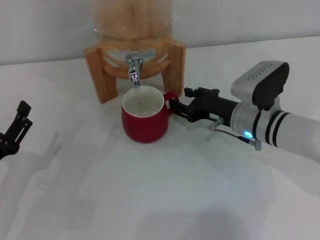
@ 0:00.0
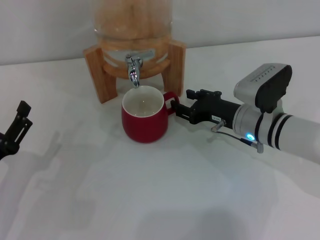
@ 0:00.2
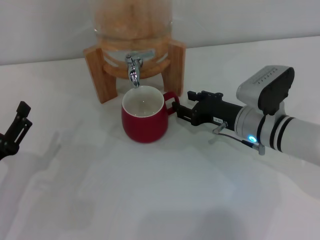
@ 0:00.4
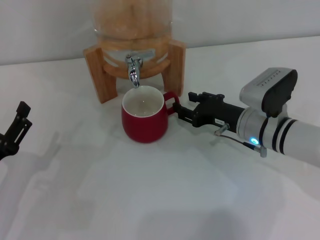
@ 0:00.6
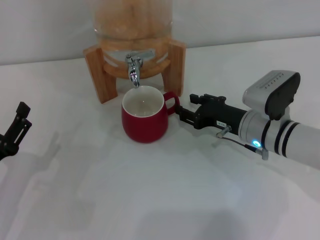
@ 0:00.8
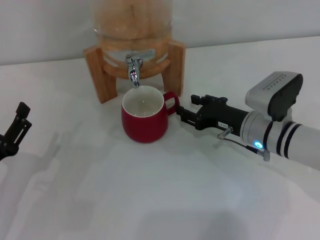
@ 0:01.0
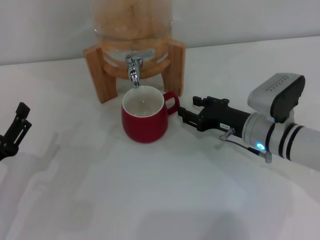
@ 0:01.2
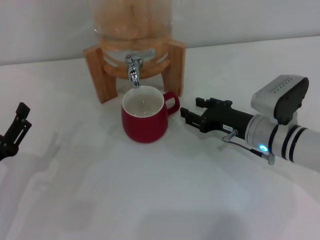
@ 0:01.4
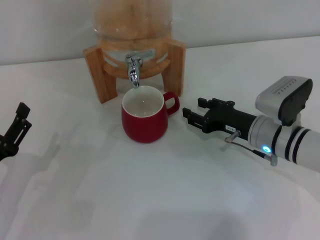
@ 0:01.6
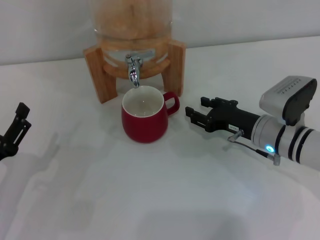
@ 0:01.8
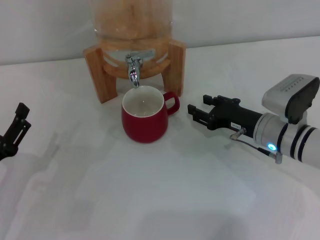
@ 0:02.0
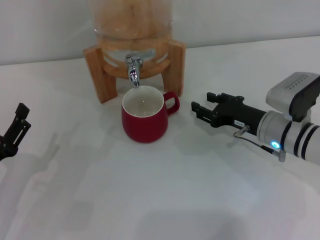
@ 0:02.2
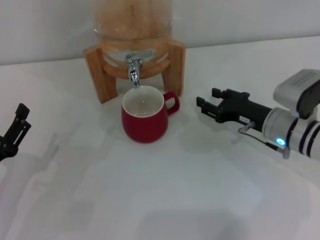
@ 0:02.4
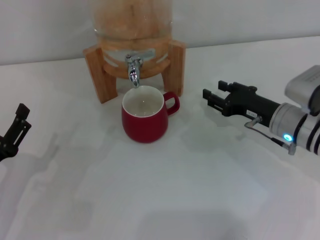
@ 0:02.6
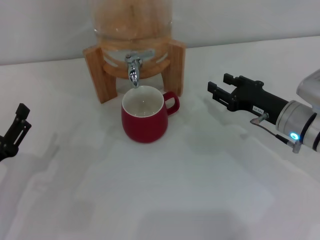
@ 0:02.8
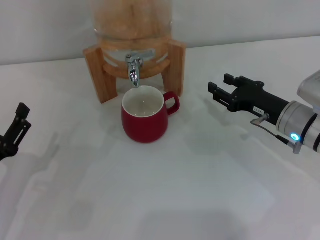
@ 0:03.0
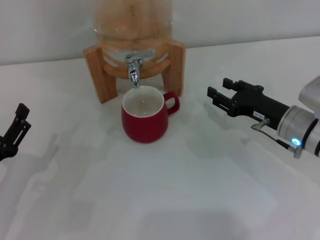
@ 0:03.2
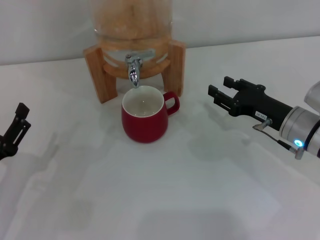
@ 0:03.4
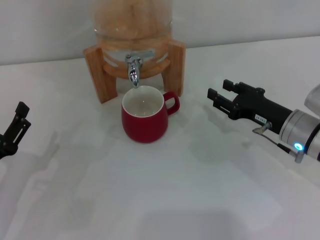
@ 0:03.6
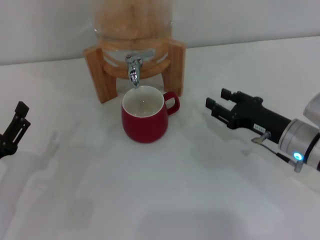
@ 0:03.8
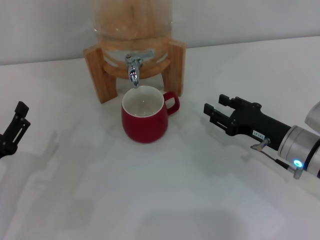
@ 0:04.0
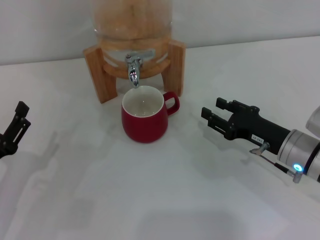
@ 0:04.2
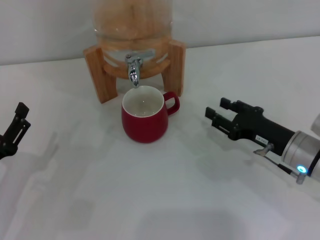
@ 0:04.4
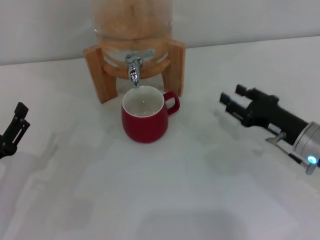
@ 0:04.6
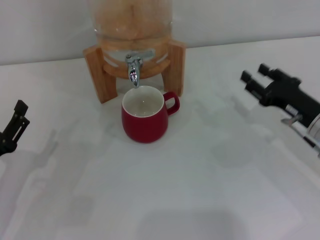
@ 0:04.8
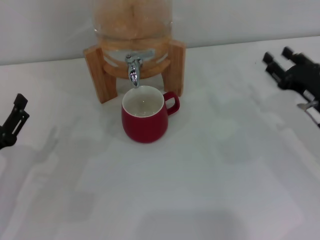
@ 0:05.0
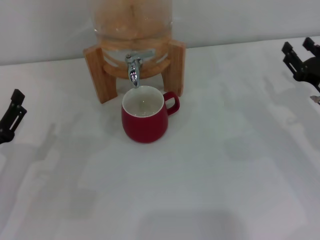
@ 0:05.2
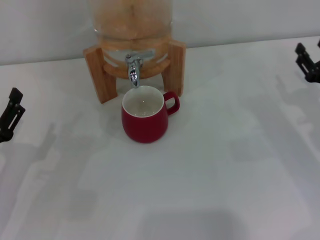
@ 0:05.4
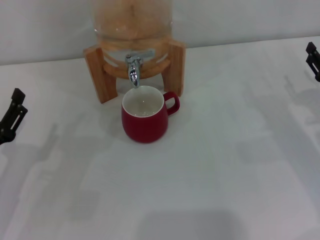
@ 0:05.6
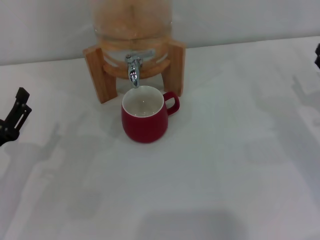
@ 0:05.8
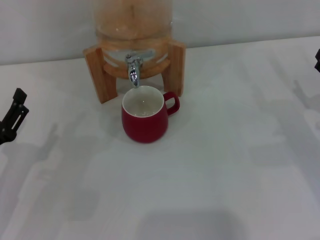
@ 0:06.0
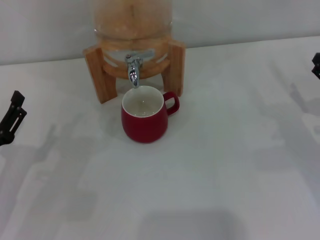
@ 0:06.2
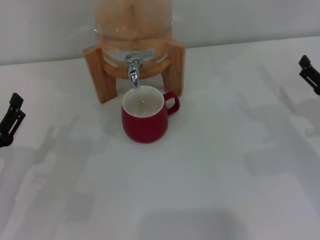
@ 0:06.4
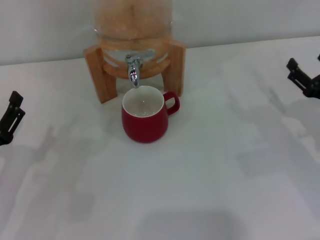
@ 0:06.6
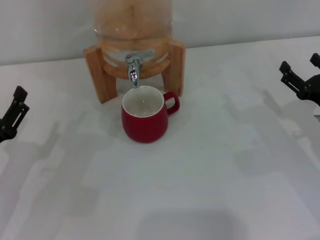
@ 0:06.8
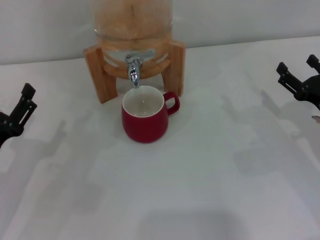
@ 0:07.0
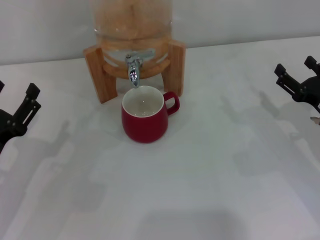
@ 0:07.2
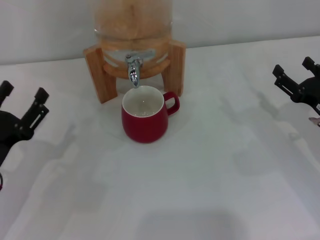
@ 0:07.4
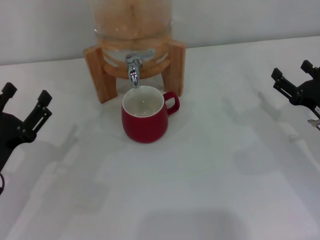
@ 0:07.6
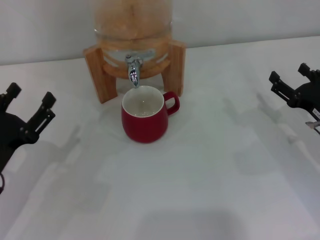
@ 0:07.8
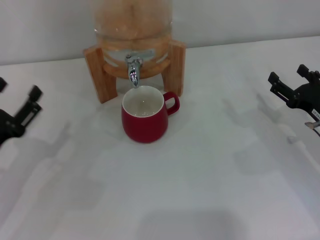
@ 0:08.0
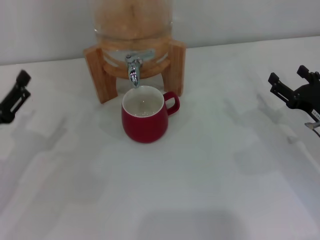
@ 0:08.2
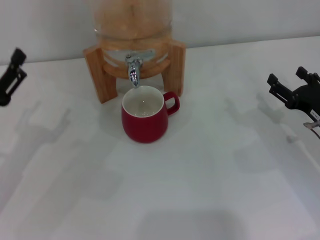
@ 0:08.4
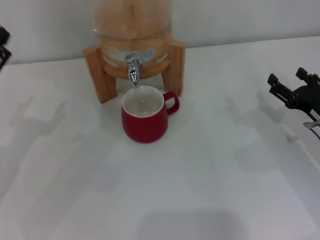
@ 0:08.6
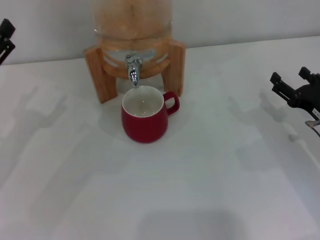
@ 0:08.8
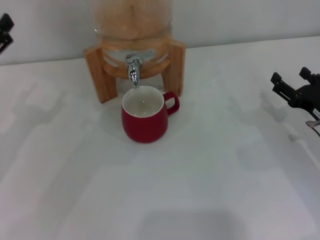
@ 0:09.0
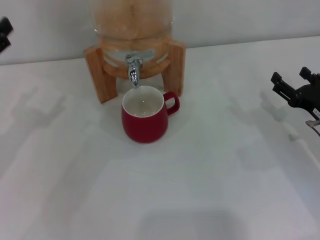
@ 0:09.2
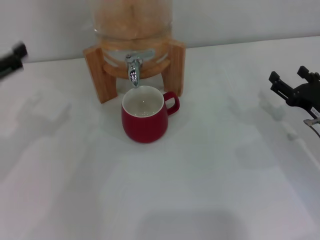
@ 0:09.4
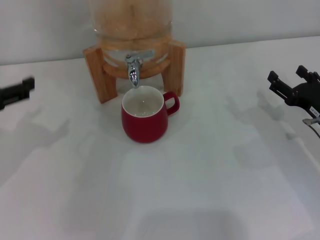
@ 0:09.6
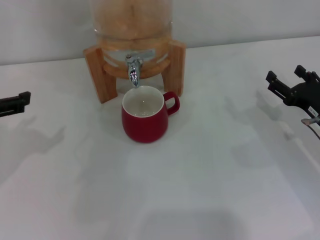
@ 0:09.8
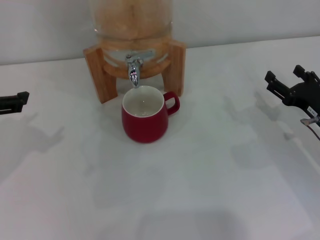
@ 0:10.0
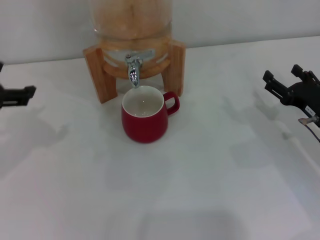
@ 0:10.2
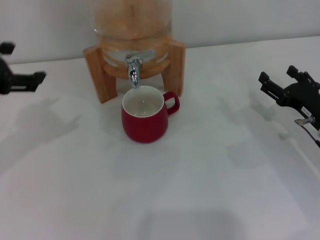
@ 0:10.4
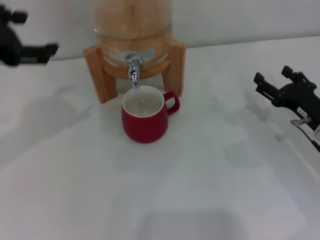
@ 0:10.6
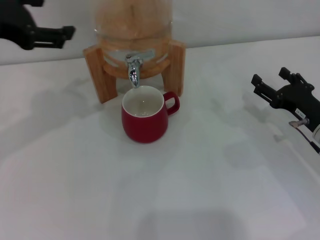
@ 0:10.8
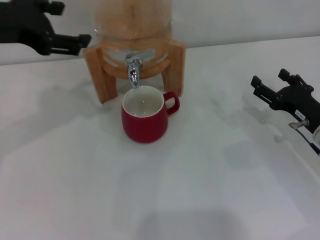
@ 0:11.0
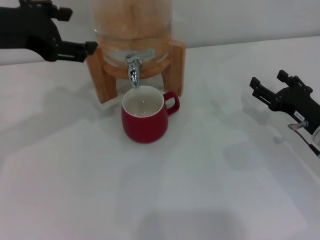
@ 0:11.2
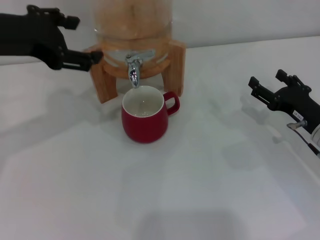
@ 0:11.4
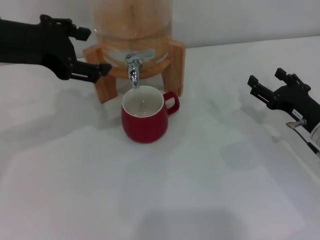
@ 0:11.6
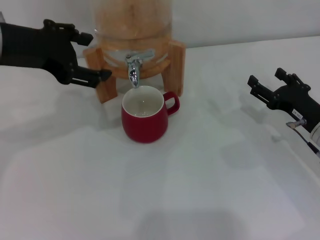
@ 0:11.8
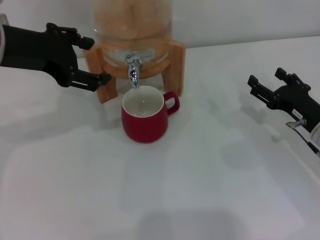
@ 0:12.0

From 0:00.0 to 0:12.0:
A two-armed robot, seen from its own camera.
Task of the whole recording: the right gripper pick up the red cup and place it horizontally under the faucet, the left gripper turn on the faucet to fill the cup, and then turn off the faucet.
Step, from 0:00.0 to 0:02.0: Move the cup beneath the water dispenser nozzle with the right gripper.
From 0:00.0 to 0:01.6: There are only small adjustments of the grippers.
From 0:01.6 to 0:03.0: There are only small adjustments of the grippers.
From 0:03.0 to 0:04.4: The right gripper moves approximately 5 cm.
From 0:04.4 to 0:06.0: The right gripper heads to the right, covering roughly 10 cm.
From 0:06.0 to 0:07.6: There are only small adjustments of the grippers.
From 0:07.6 to 0:09.0: The left gripper heads upward and forward, covering about 10 cm.
From 0:09.0 to 0:10.4: The left gripper is displaced upward by about 10 cm.
From 0:10.4 to 0:12.0: The left gripper goes roughly 10 cm to the right and forward.

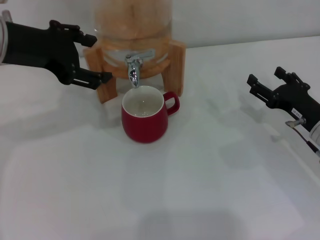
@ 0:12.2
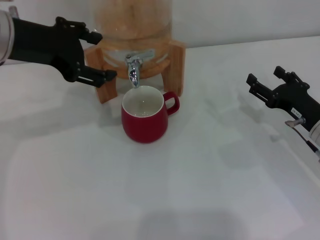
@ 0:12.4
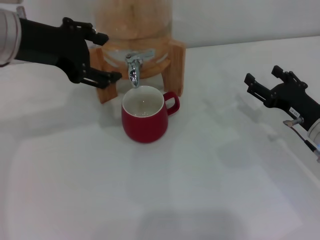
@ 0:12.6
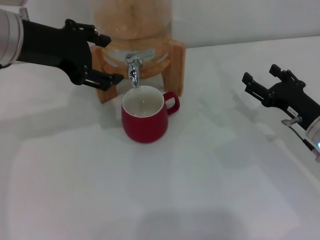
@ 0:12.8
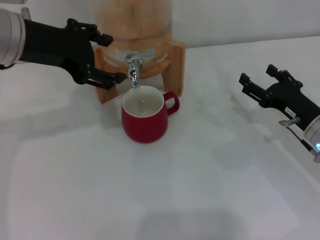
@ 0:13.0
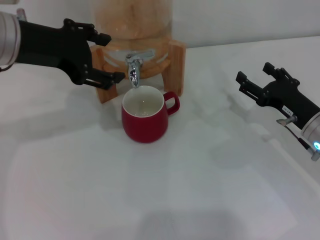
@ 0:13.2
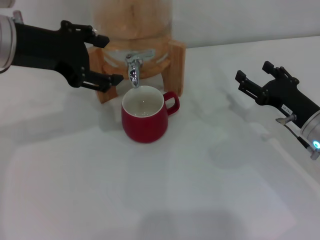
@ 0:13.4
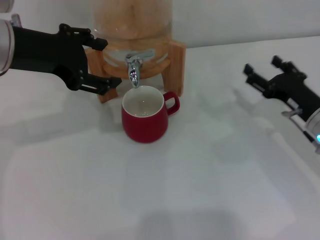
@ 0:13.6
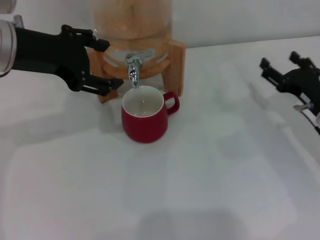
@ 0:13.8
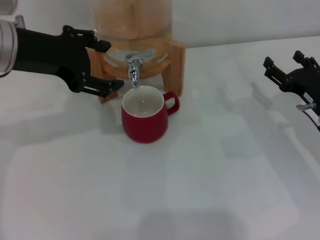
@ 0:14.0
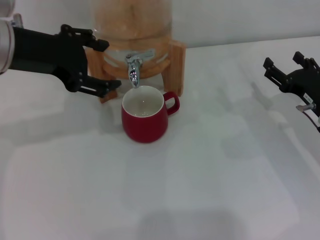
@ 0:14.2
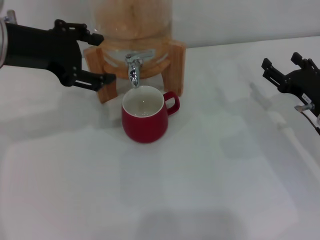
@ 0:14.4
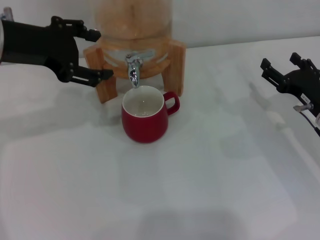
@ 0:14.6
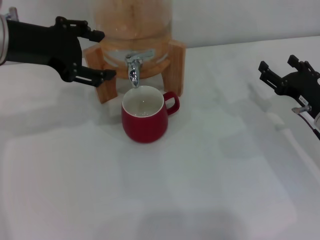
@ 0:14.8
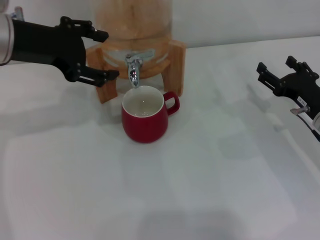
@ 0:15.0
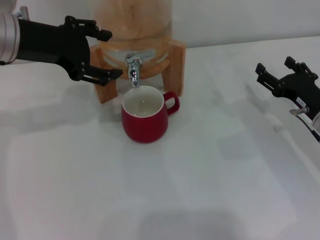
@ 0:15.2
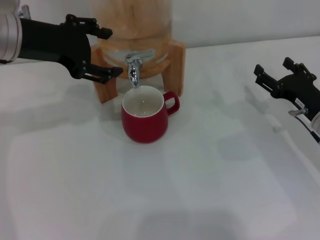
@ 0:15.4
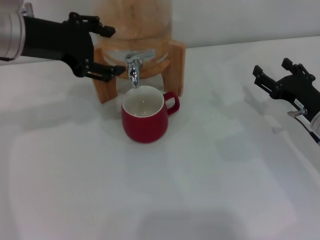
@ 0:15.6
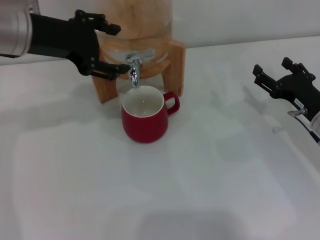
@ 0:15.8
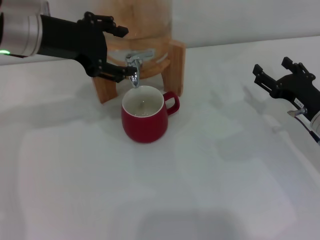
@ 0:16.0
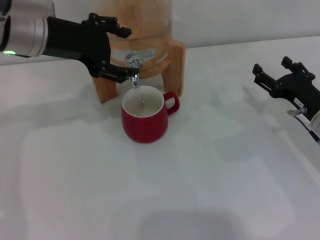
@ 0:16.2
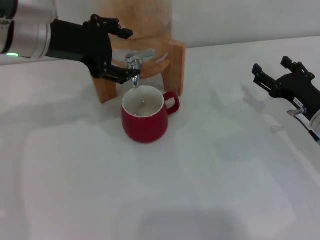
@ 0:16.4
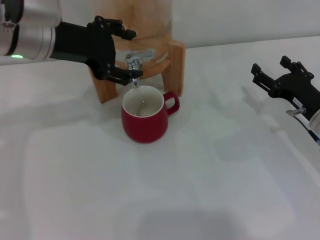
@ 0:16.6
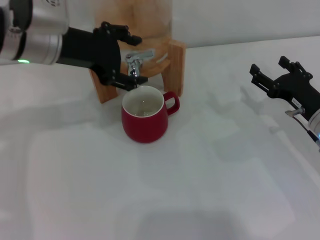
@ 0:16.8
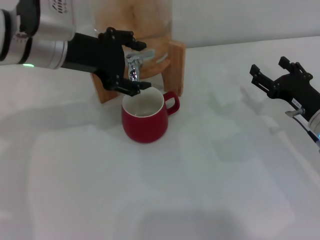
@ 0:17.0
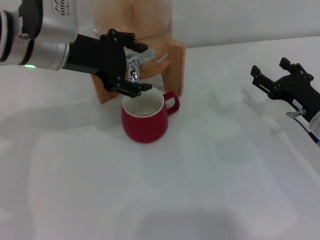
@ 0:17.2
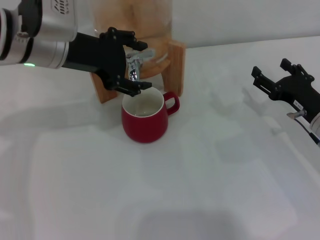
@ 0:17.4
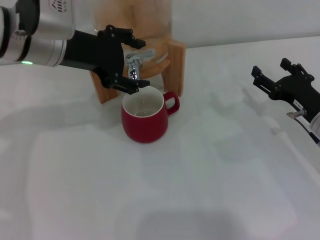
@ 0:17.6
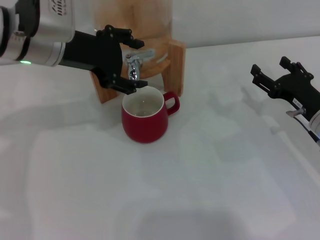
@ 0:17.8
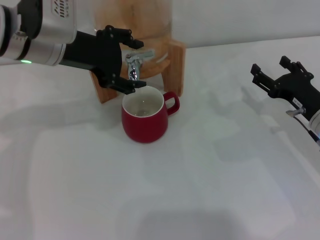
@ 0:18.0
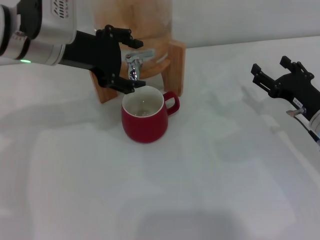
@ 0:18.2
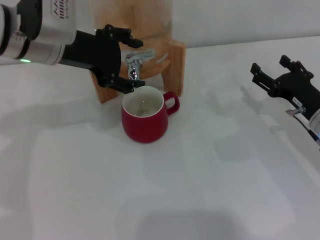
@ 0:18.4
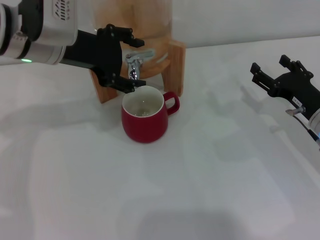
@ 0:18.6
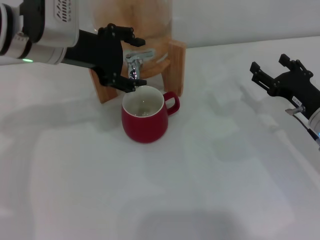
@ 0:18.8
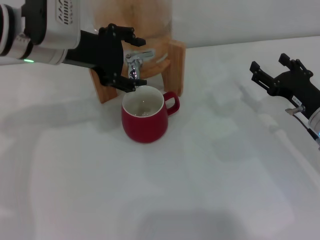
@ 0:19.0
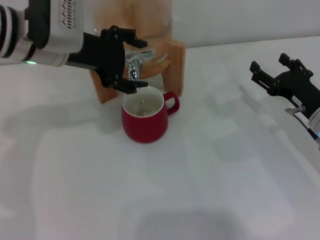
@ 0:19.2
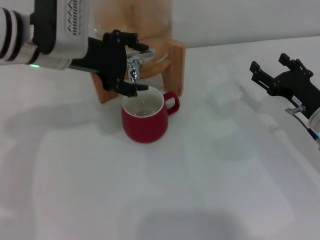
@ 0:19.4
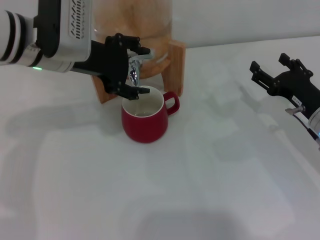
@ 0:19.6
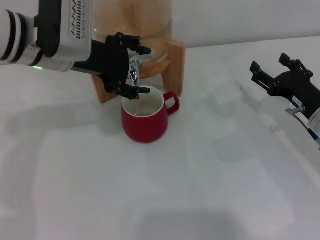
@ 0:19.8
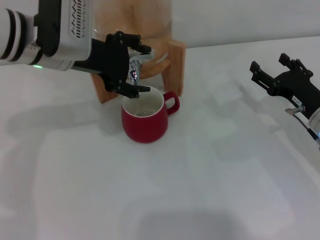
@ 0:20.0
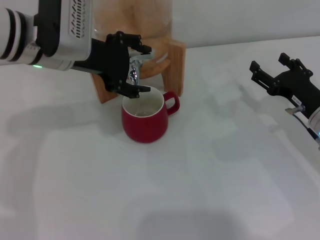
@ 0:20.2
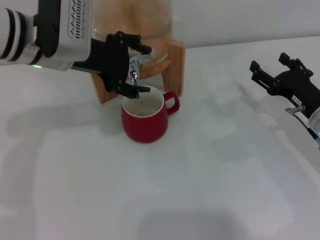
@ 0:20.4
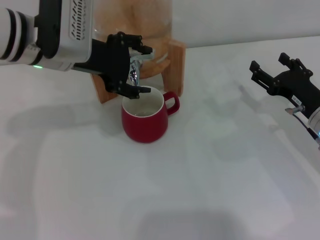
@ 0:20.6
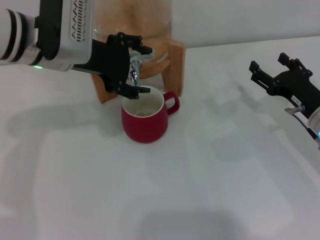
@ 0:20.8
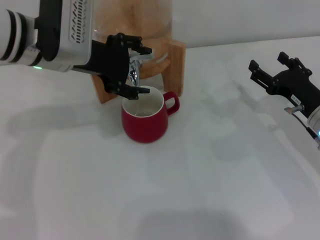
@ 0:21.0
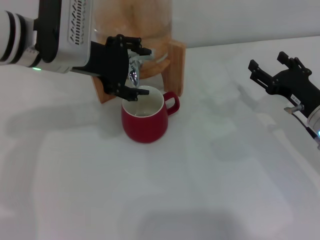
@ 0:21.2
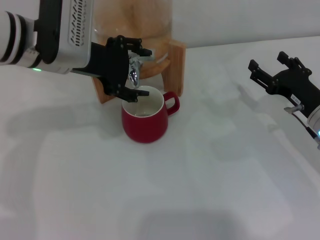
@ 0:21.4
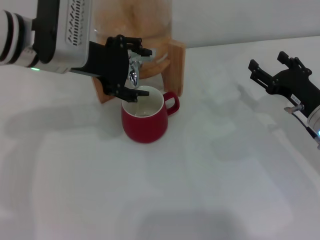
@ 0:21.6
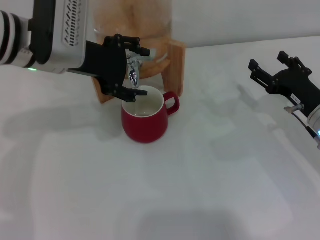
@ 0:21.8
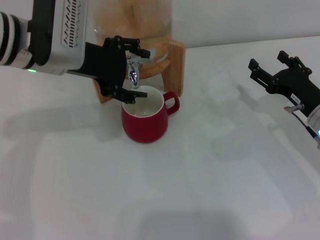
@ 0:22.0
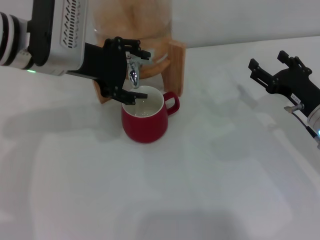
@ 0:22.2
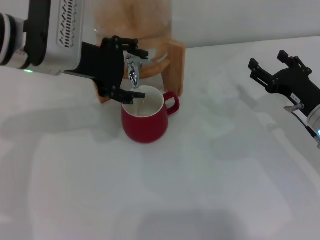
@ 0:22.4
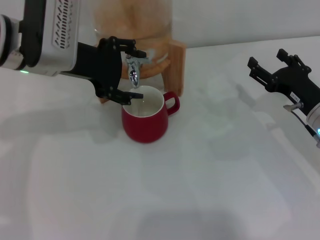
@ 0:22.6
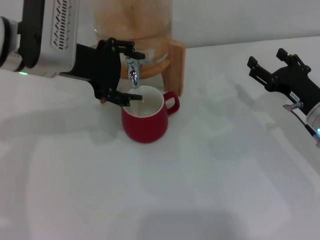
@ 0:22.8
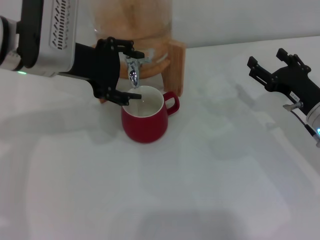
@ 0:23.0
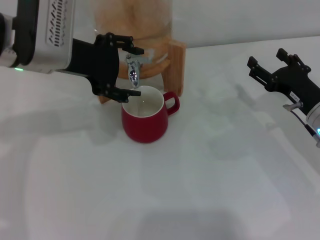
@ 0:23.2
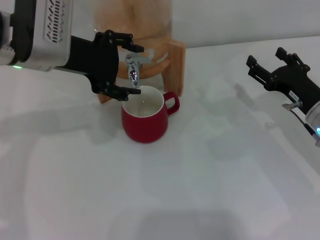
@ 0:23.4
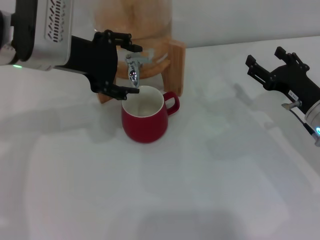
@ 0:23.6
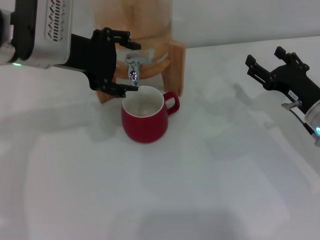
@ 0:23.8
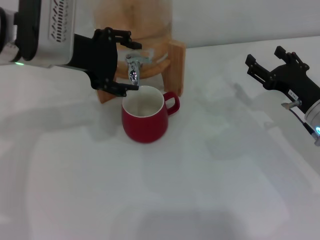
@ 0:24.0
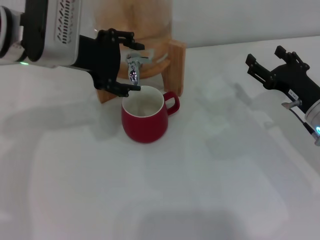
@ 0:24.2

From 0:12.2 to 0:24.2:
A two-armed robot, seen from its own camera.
Task of the whole recording: the right gripper pick up the red cup and place it horizontally under the faucet, the left gripper turn on the faucet to fill the cup, and then turn off the faucet.
From 0:12.2 to 0:16.6: The grippers stay close to where they were, moving slightly.
From 0:16.6 to 0:19.8: The grippers move only a little.
From 0:19.8 to 0:21.2: Both grippers stay about where they are.
From 0:21.2 to 0:22.6: There are only small adjustments of the grippers.
From 0:22.6 to 0:24.2: Both grippers stay about where they are.
